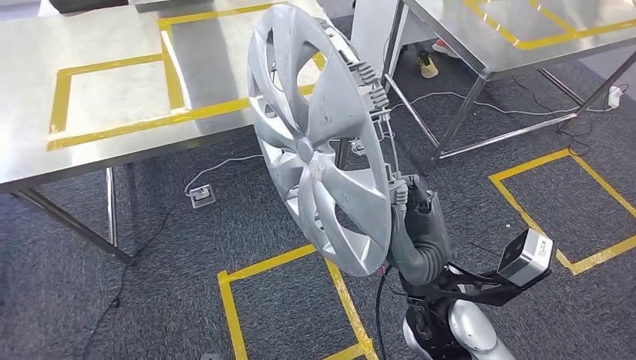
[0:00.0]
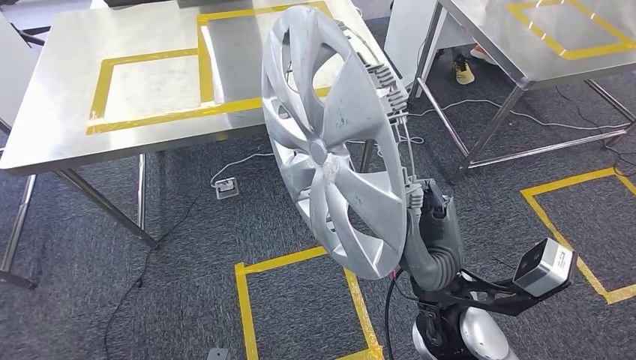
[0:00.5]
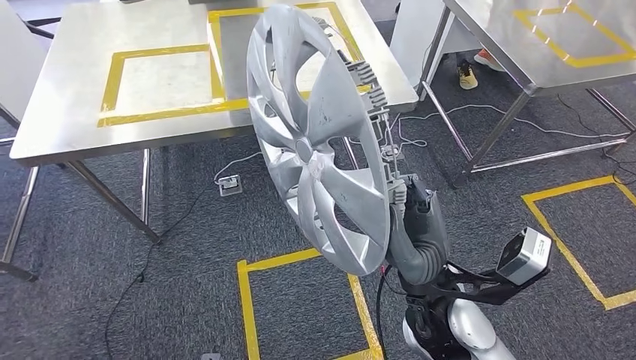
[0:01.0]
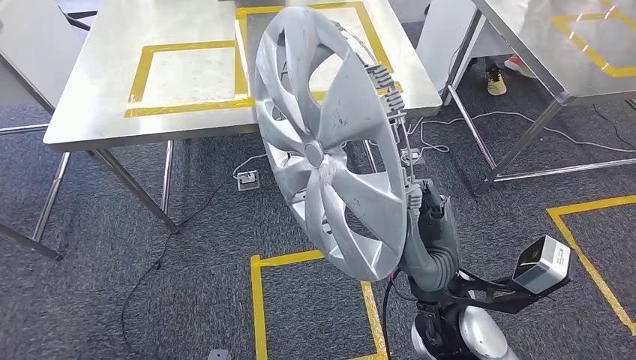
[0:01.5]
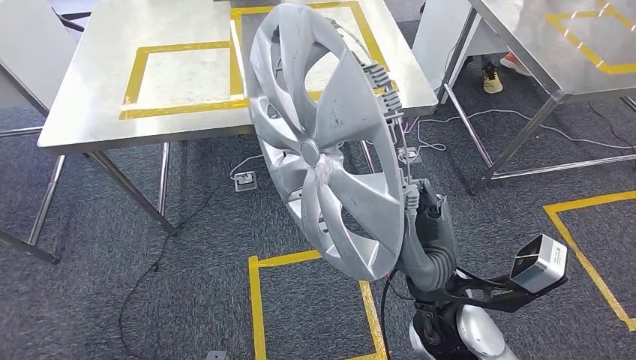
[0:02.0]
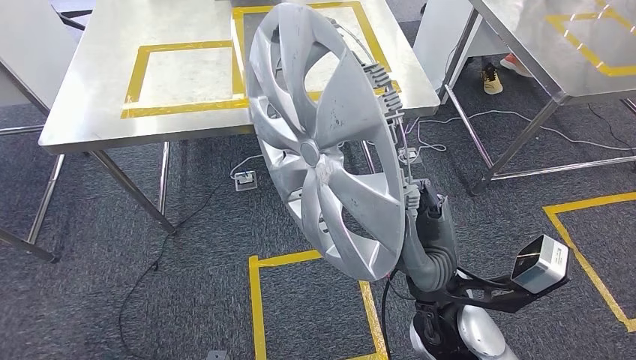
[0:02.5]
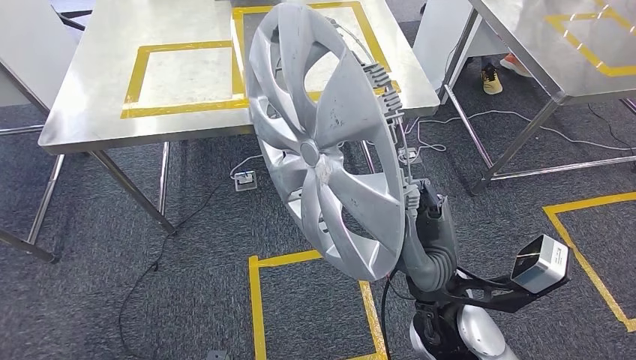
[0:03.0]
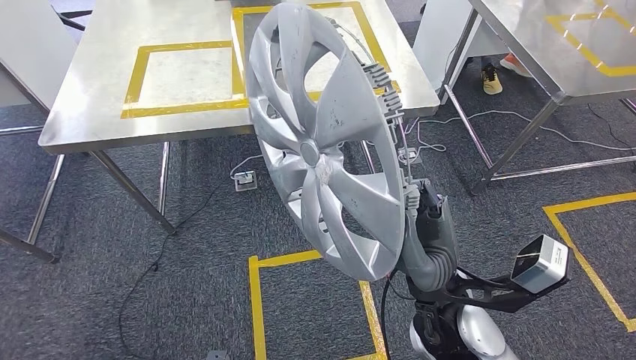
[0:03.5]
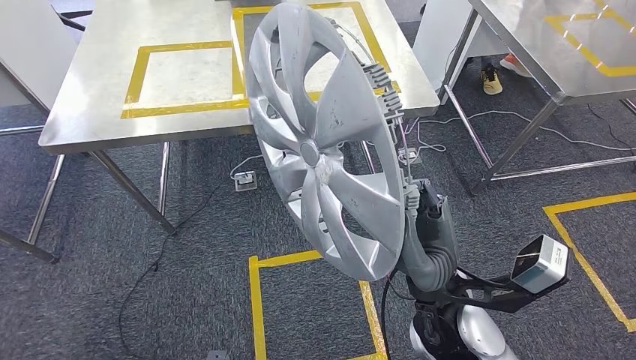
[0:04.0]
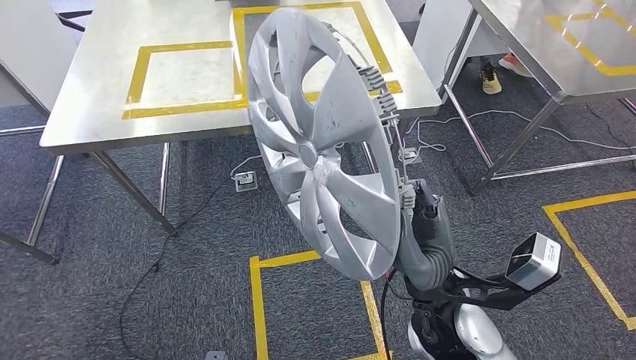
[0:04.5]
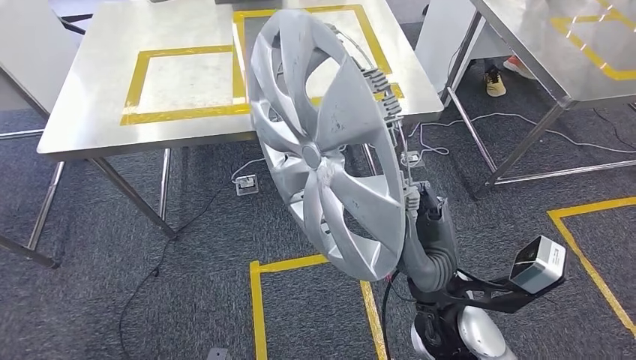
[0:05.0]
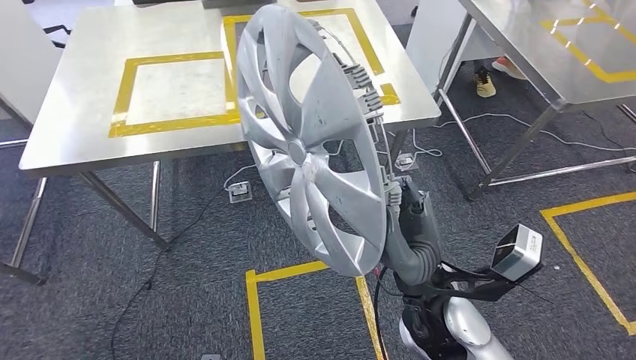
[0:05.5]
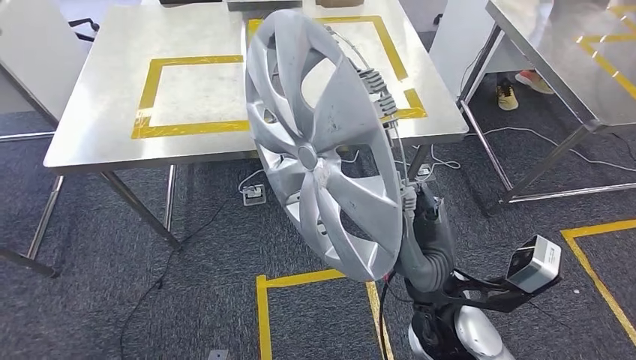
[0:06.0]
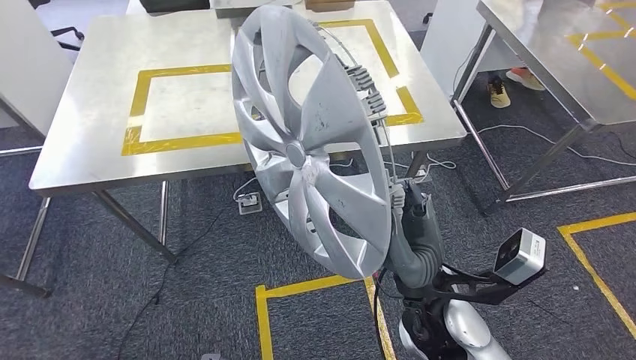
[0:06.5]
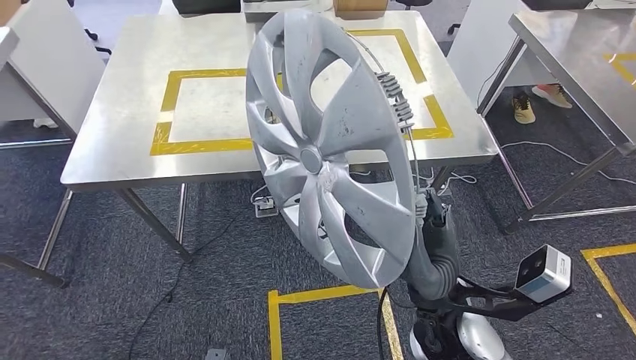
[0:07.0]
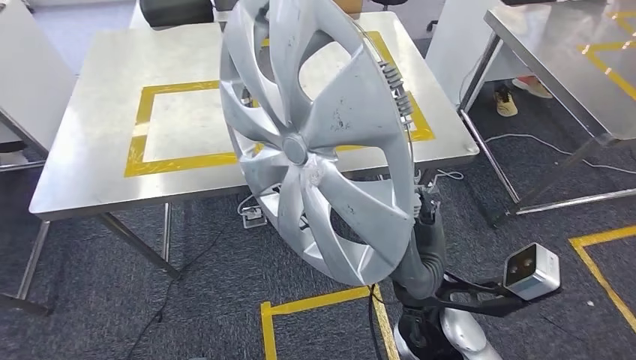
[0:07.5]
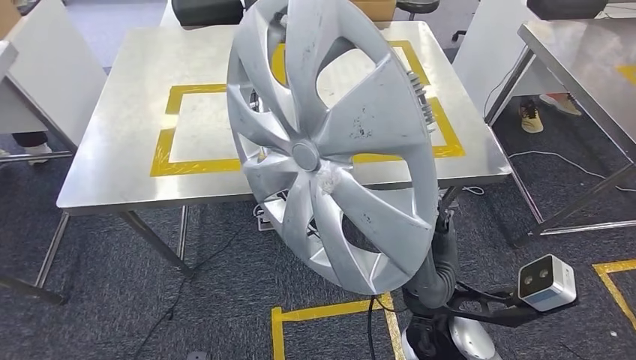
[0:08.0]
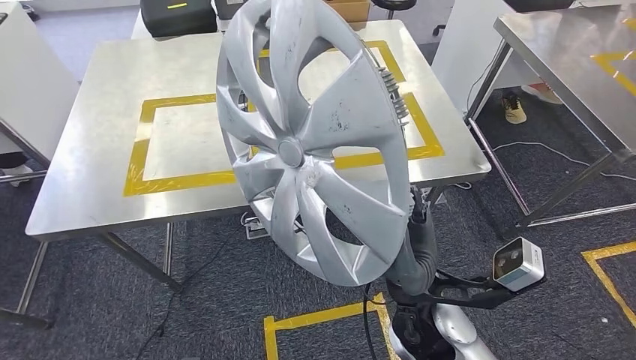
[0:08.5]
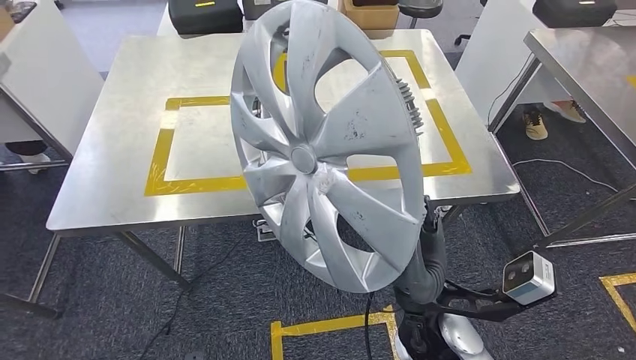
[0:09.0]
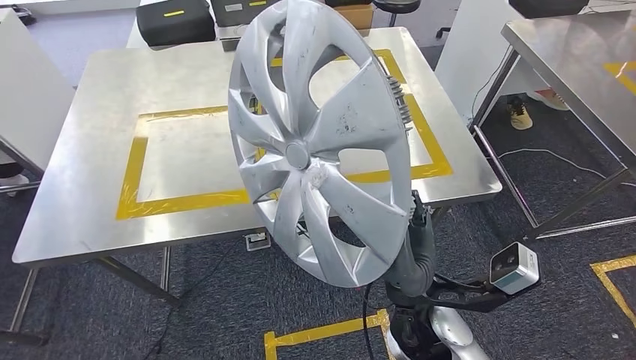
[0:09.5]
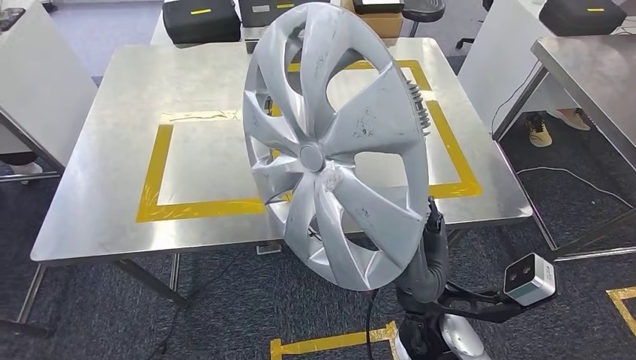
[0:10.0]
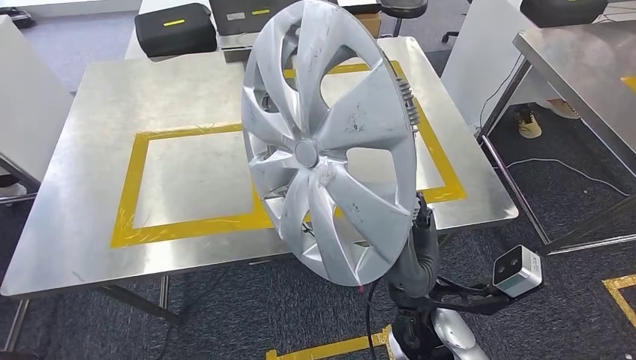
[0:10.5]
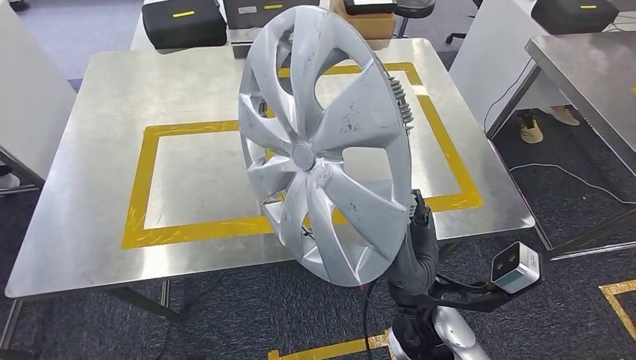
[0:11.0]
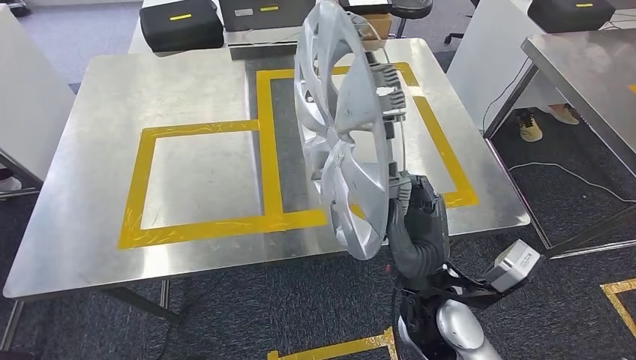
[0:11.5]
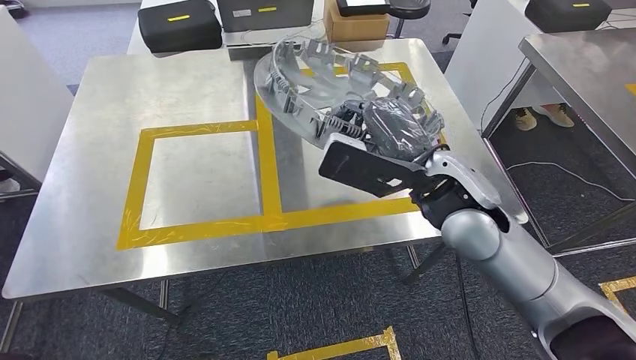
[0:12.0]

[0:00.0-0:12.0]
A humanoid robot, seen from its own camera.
Step, 0:00.0 to 0:07.0: Move the small parts to the workbench.
0:02.0 to 0:04.0: Both hands stay put.

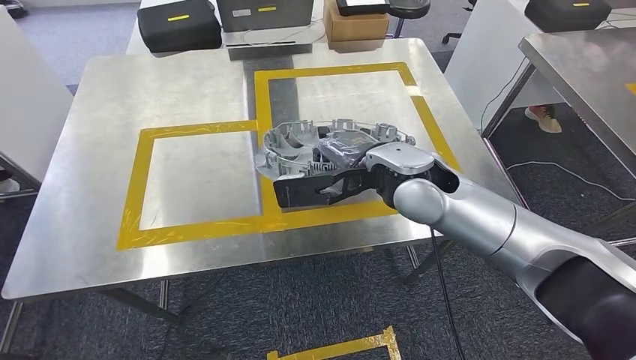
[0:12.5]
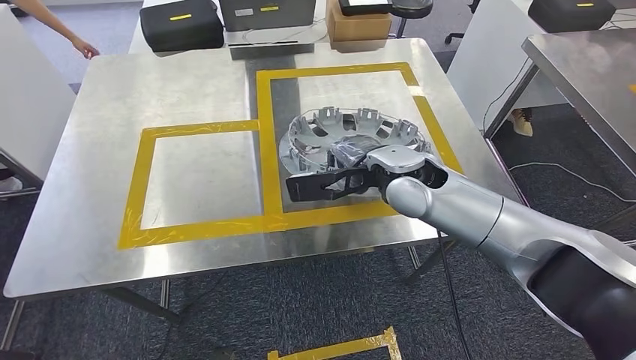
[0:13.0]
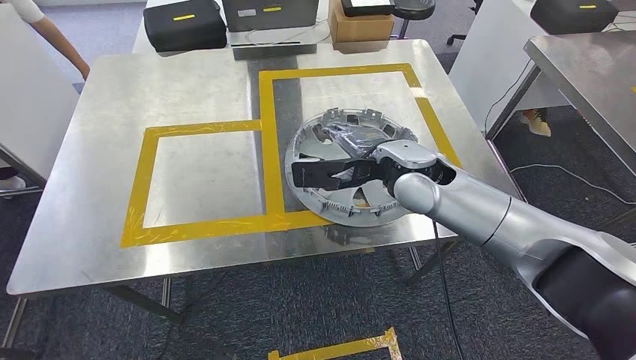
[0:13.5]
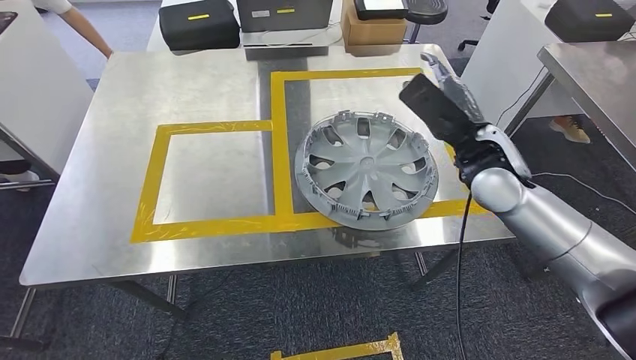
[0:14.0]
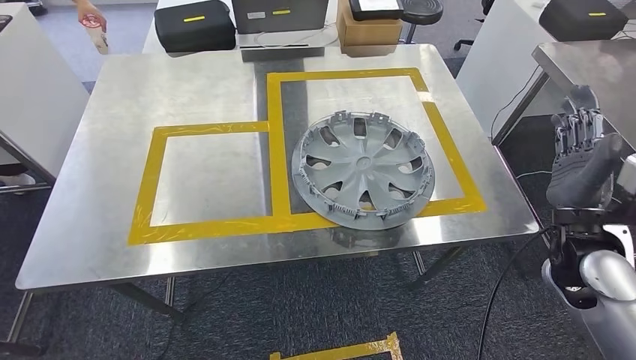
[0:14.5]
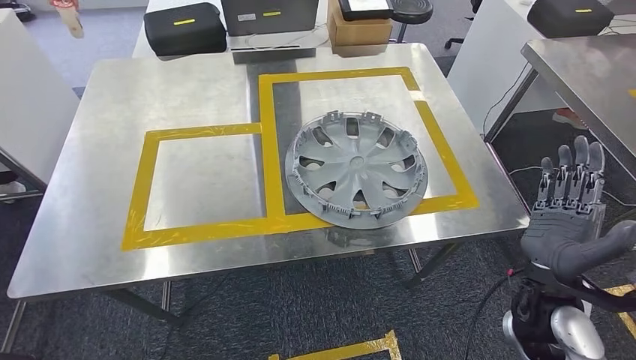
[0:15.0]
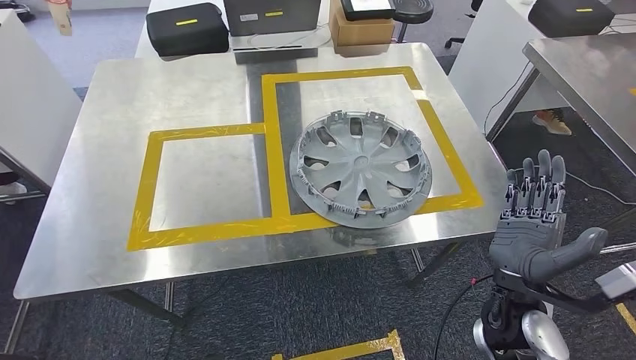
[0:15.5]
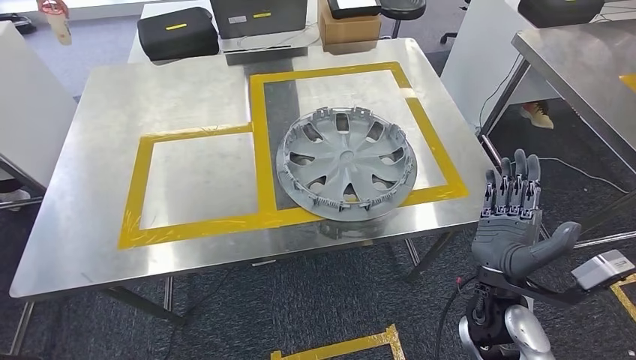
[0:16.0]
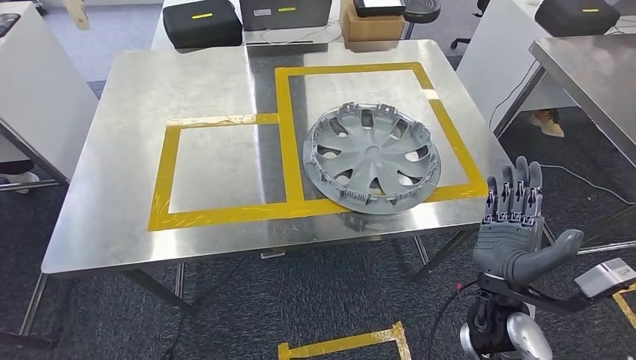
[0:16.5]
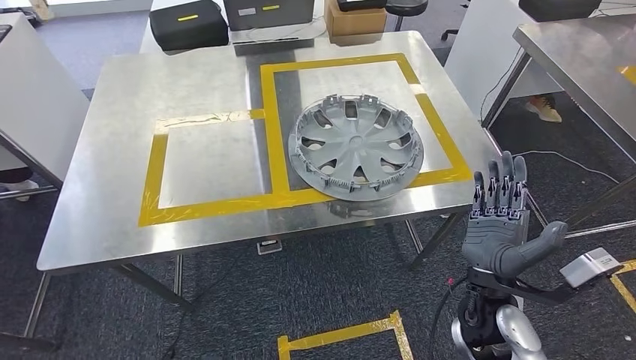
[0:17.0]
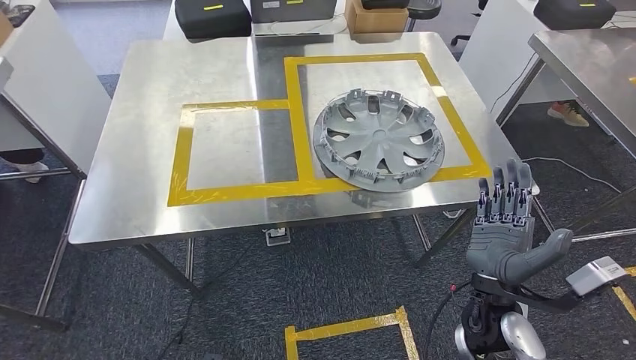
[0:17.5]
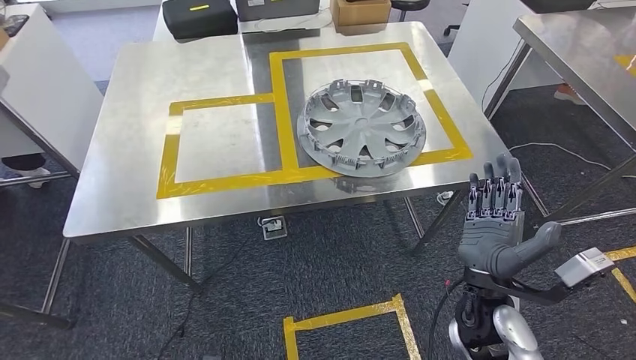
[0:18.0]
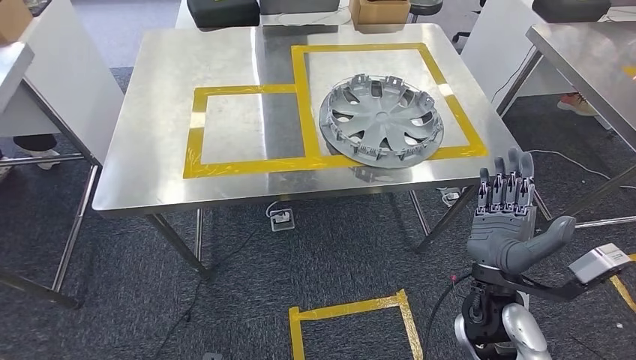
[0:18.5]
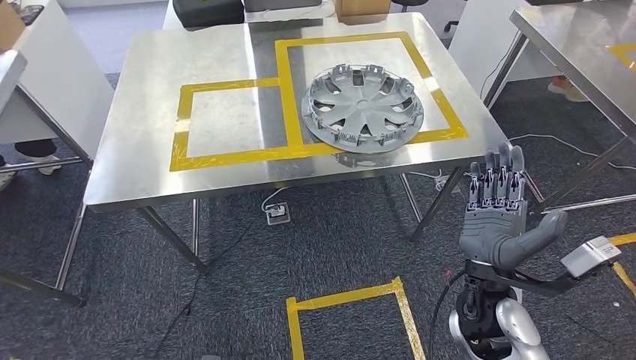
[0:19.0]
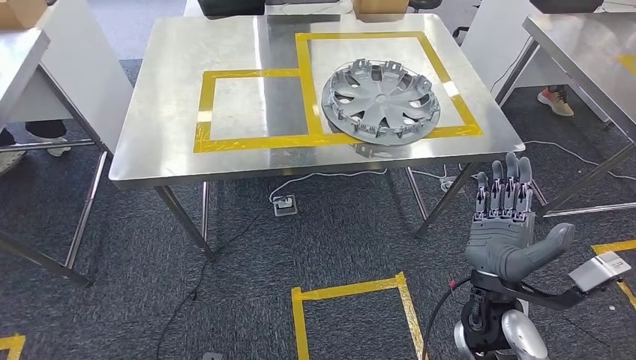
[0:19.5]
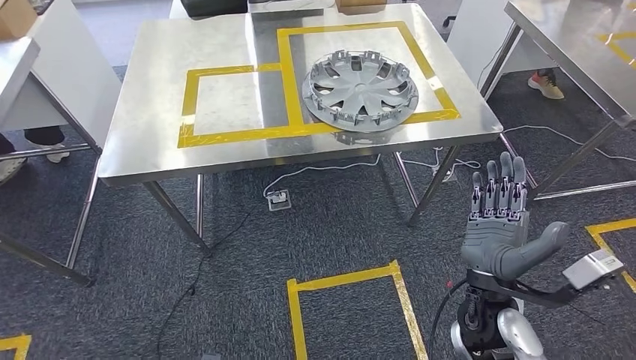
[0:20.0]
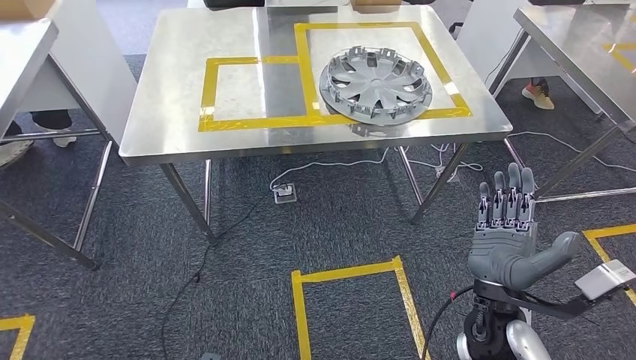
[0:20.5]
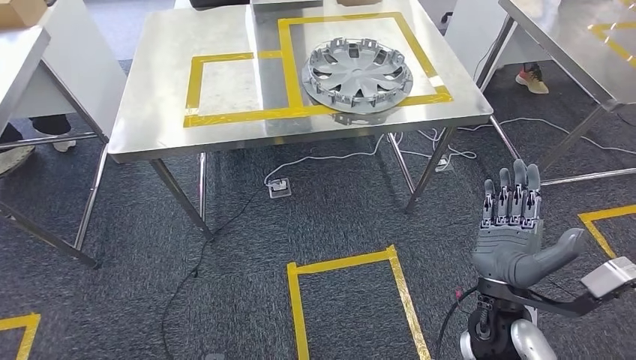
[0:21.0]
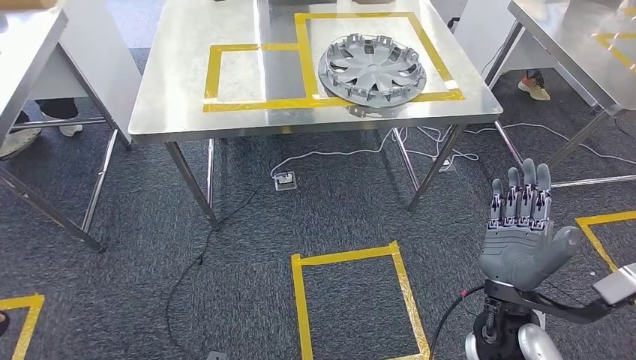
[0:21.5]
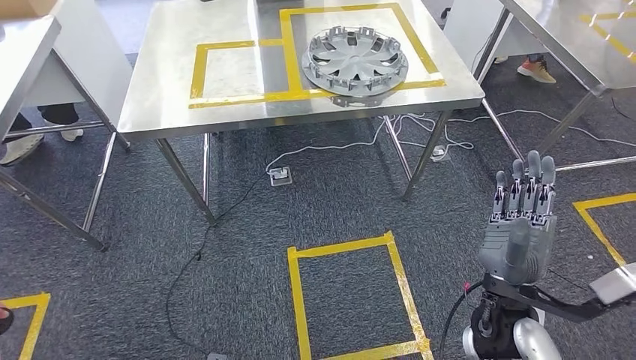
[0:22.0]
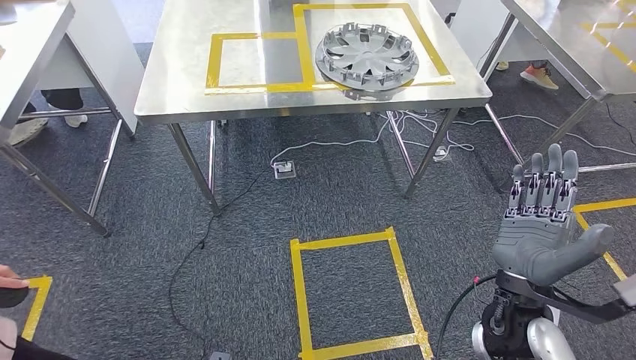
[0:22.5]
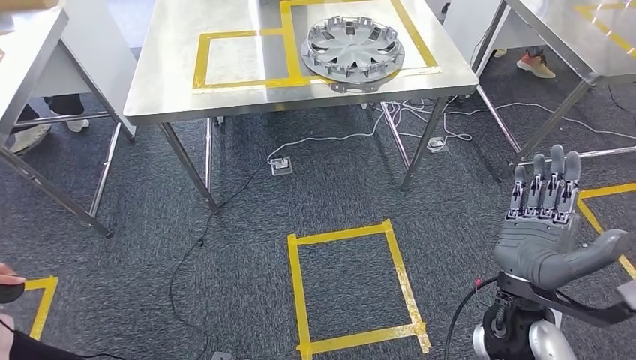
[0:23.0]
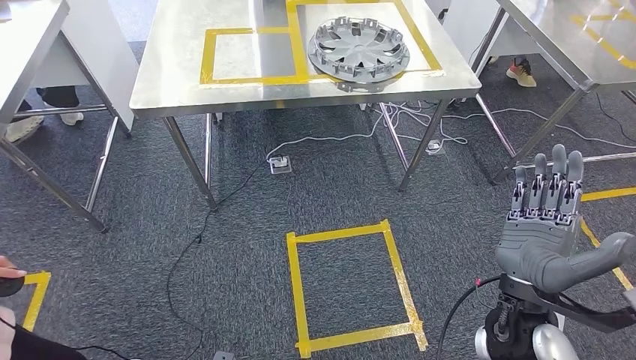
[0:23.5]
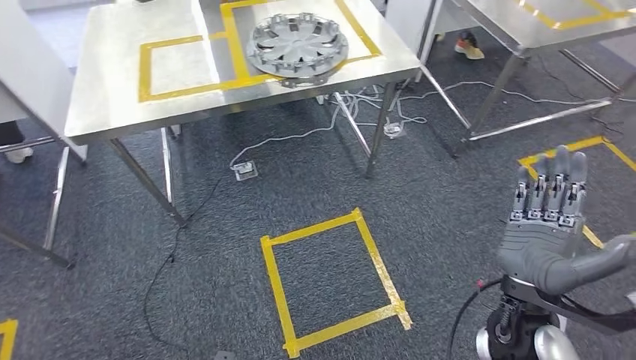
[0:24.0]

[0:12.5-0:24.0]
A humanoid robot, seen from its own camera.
Step, 0:12.5 to 0:16.5: Insert the small parts into the corresponding holes on the workbench.
